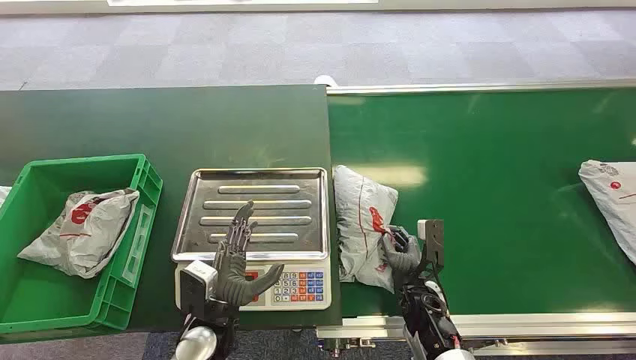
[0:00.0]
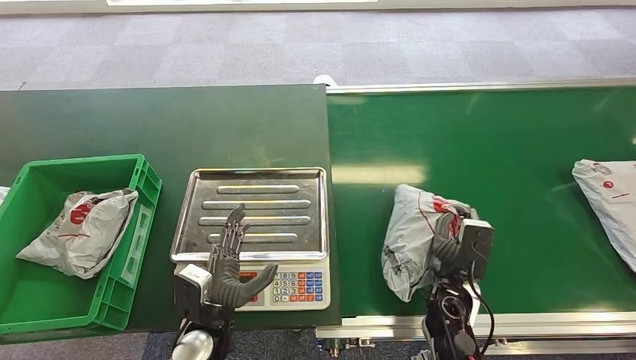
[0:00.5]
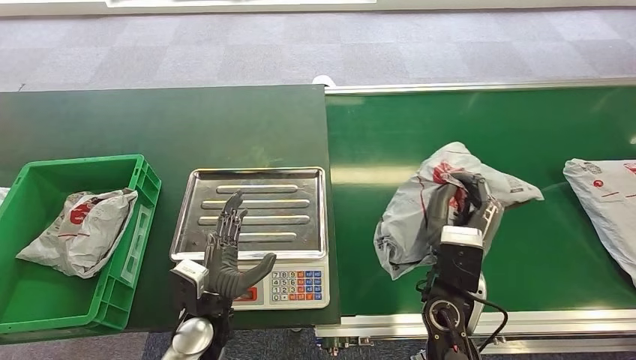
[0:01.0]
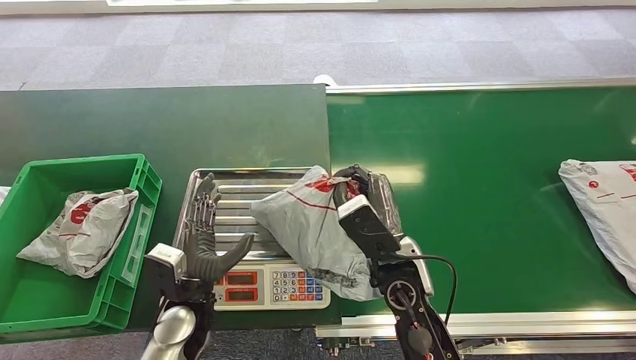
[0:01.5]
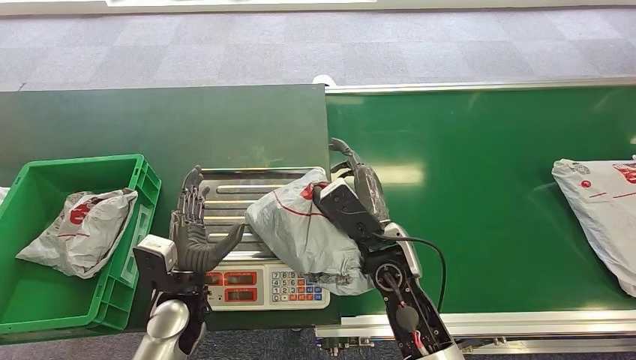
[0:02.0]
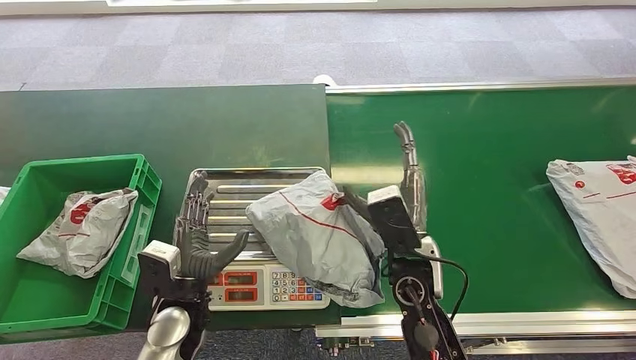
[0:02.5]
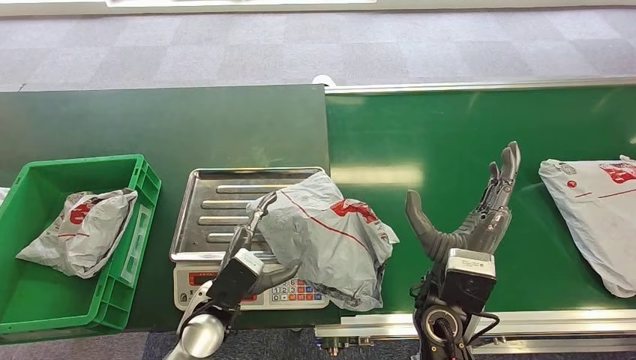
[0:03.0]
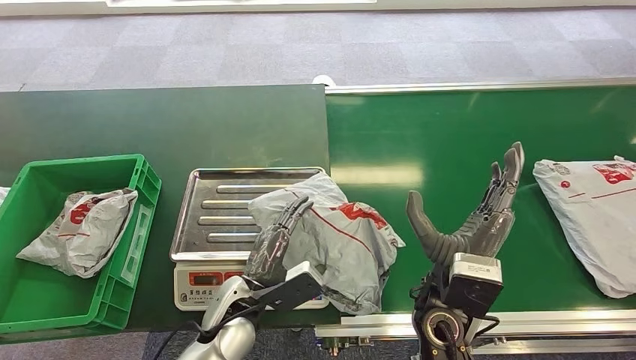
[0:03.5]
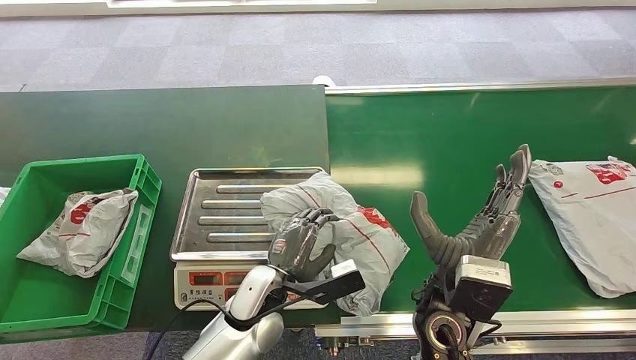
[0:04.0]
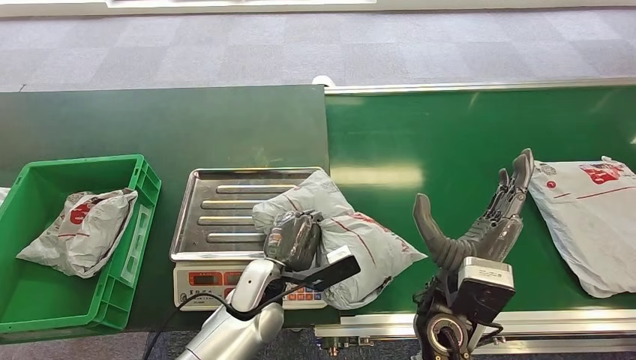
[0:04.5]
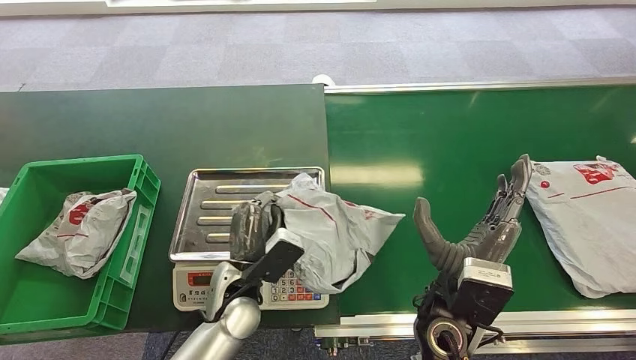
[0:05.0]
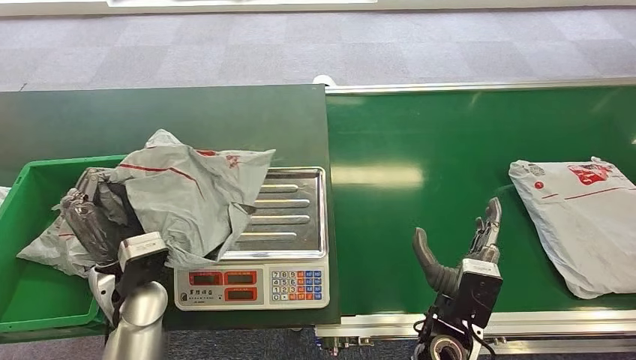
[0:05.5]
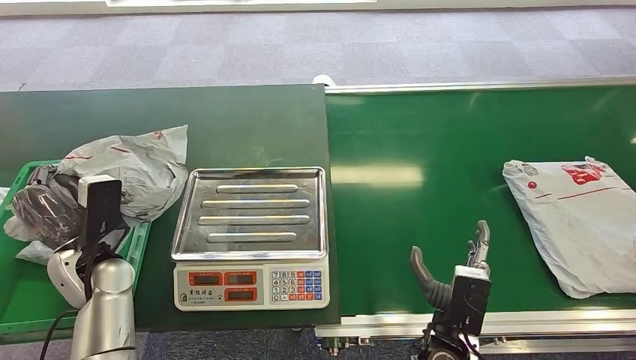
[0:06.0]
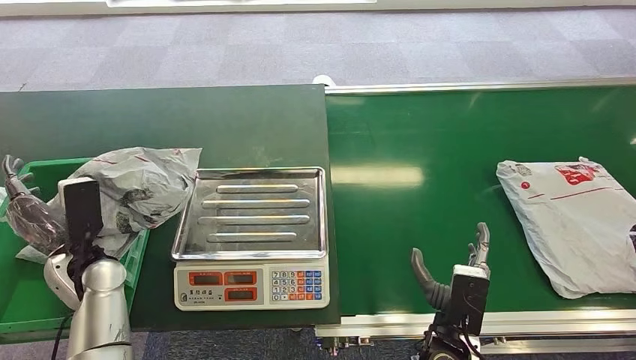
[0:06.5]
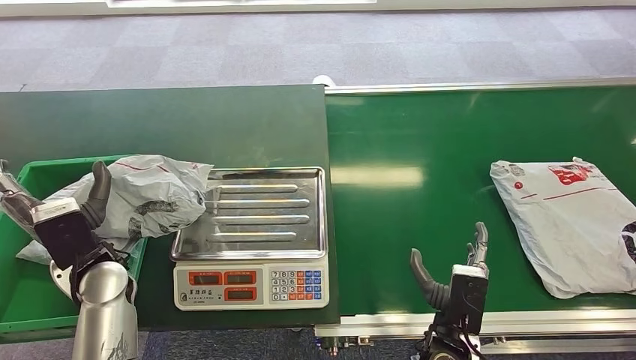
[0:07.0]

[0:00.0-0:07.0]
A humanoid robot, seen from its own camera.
Step, 0:00.0 to 0:01.0: Pick up the package from the conveyor belt.
Step, 0:01.5 to 0:02.5: Place the package onto the inbound machine.
Step, 0:04.5 to 0:05.5: Pick up the package from the inbound machine.
Step, 0:06.0 to 0:07.0: Place the package into the parcel locker.
0:02.0 to 0:03.5: The right hand moves backward and to the right, some 10 cm. The left hand travels to the right by approximately 10 cm.
